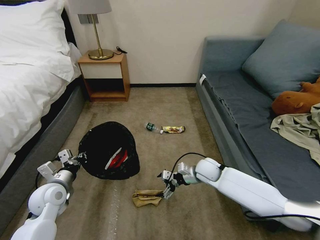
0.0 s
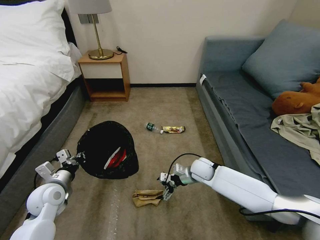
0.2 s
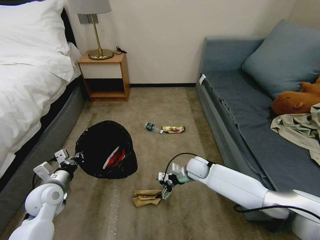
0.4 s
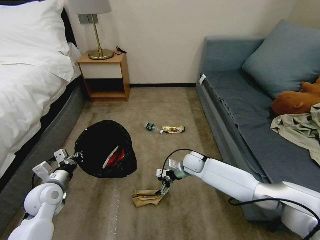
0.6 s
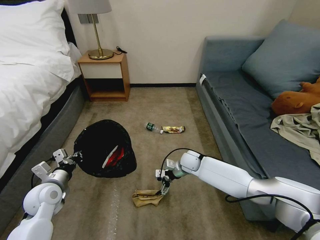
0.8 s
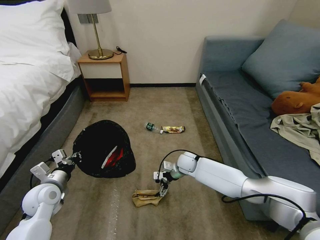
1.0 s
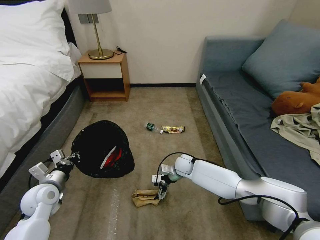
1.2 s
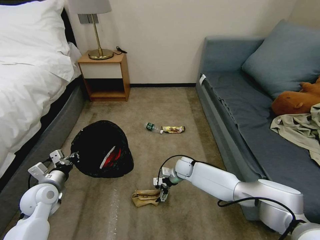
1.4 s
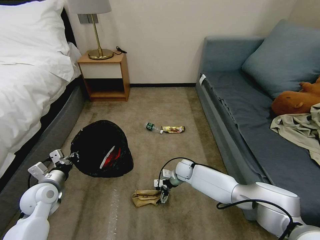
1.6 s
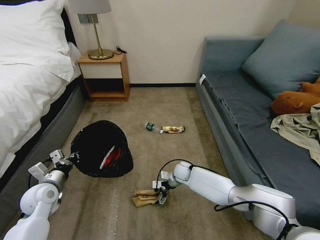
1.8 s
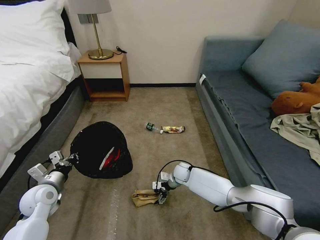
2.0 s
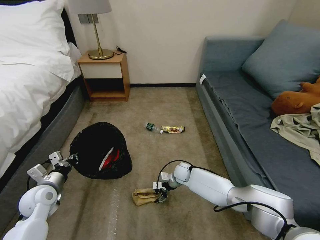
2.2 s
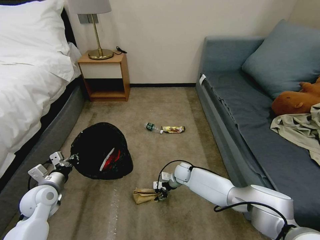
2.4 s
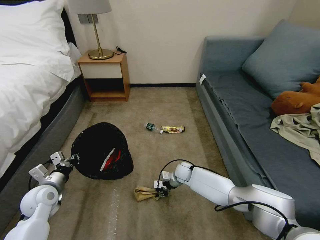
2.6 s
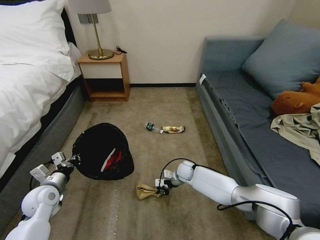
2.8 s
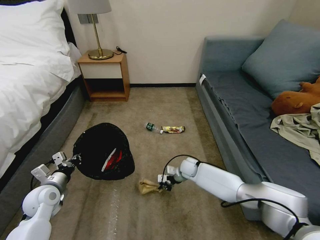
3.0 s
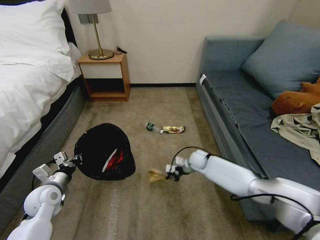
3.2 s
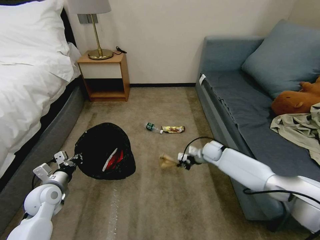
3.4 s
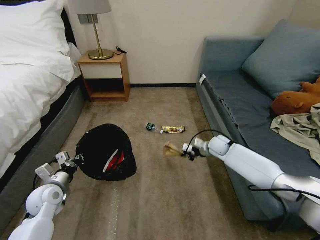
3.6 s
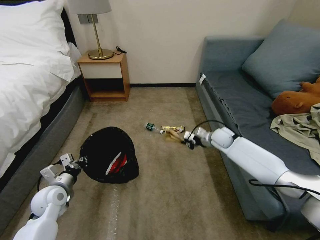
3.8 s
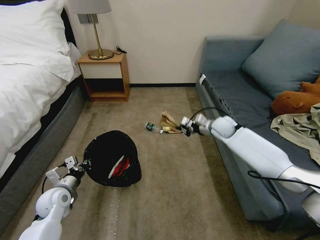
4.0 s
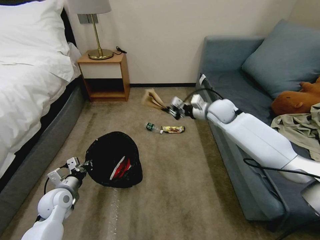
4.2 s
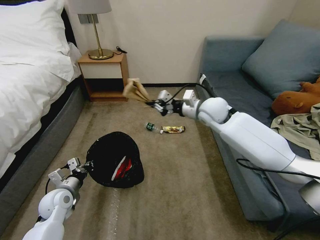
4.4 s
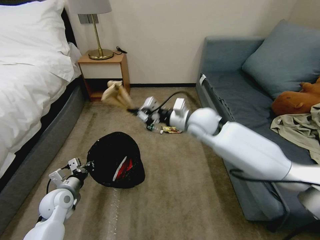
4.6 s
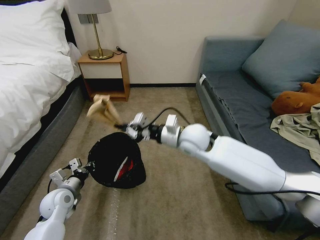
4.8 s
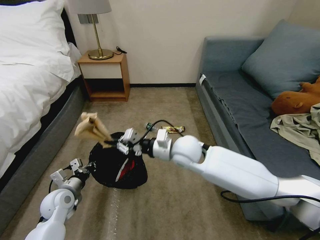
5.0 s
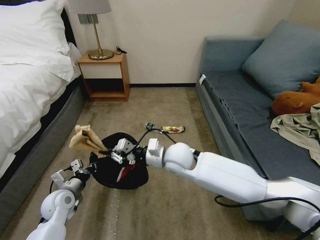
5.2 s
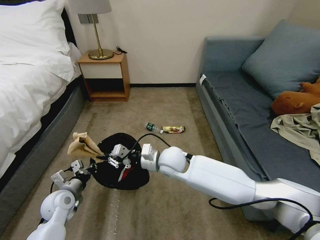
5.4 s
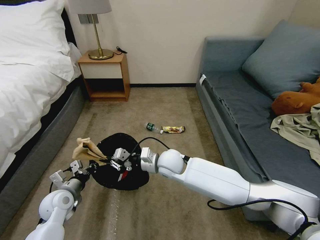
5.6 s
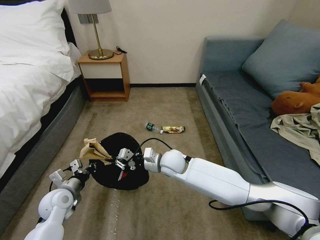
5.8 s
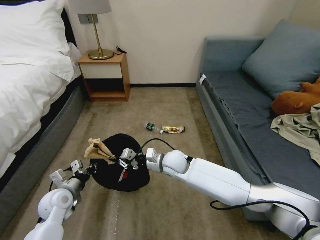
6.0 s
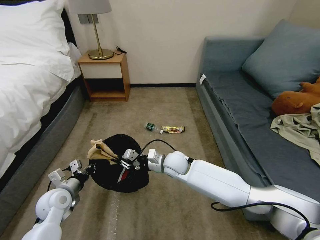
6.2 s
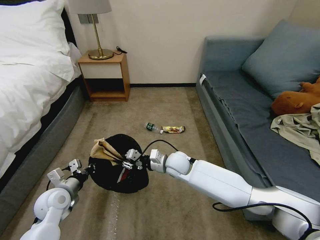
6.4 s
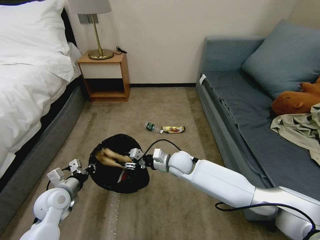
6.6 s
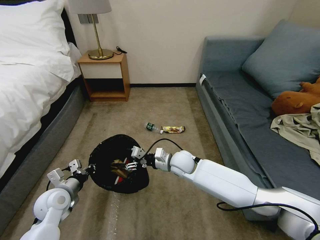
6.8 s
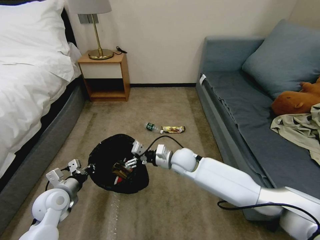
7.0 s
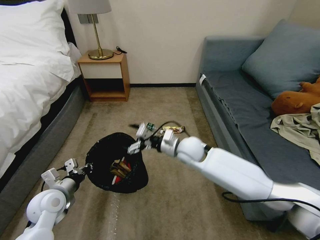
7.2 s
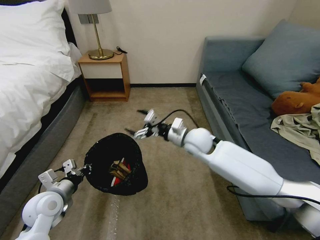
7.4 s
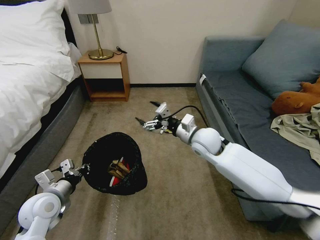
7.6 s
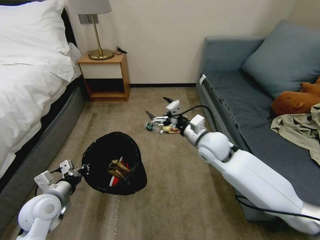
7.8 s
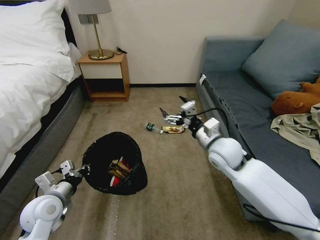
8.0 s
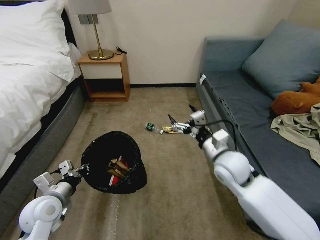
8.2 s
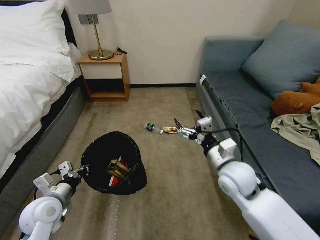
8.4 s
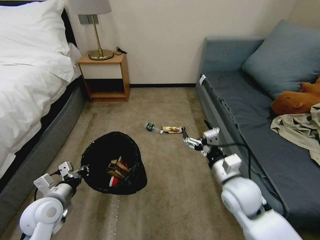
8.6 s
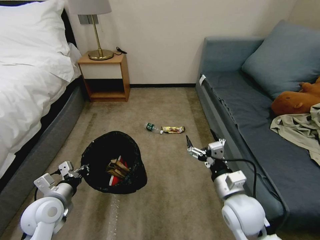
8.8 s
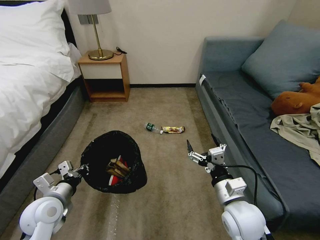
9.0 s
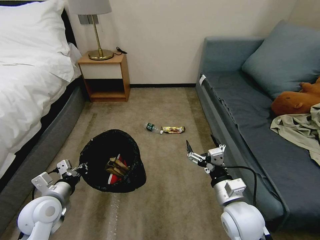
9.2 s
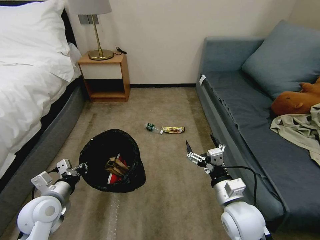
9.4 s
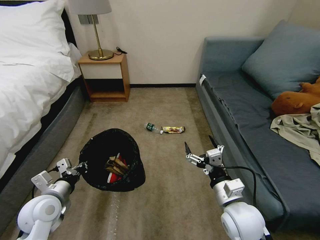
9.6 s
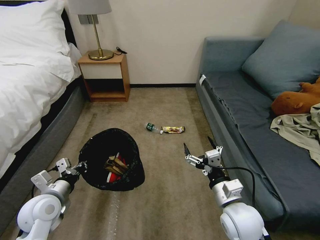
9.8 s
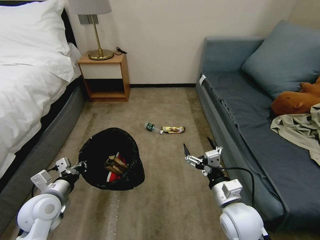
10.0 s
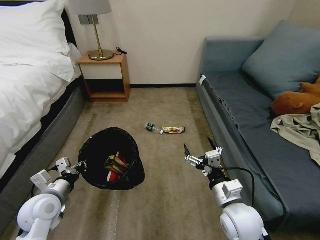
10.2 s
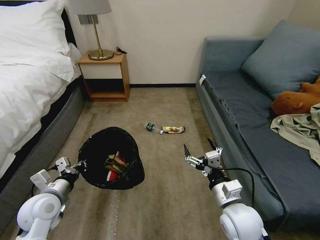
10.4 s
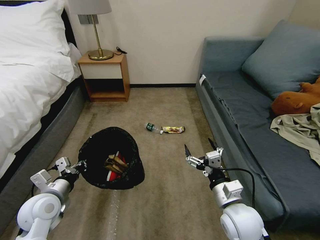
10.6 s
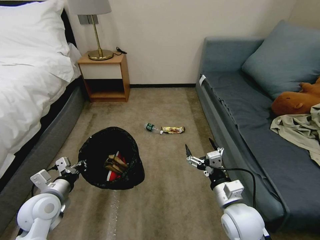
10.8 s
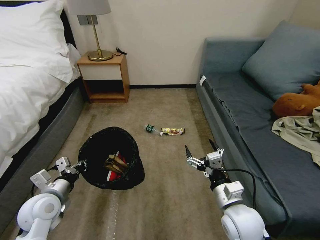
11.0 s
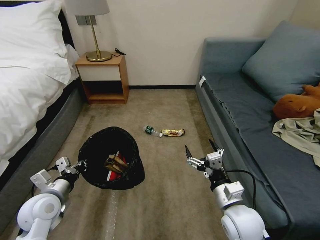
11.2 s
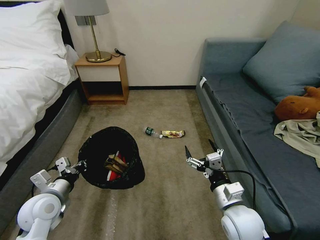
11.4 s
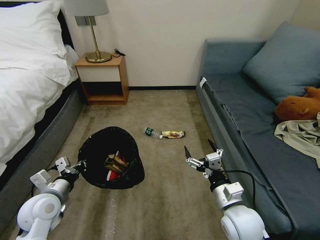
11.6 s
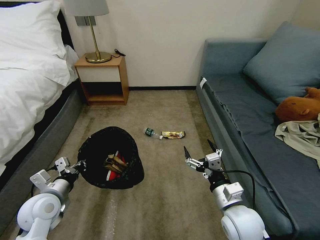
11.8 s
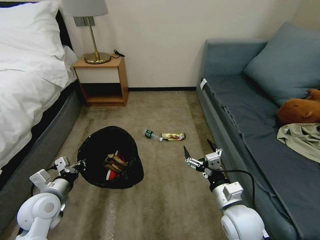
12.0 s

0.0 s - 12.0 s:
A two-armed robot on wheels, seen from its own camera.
Task of the whole recording: Pick up the trash bin, then pick up the garbage on the floor and place it into the trash bin.
0.0 s - 1.6 s: The right gripper goes some 15 cm downward, to the left and forward.
1.6 s - 3.0 s: The right gripper closes up.
3.0 s - 4.4 s: The right gripper travels upward by roughly 30 cm.
4.4 s - 6.0 s: The right gripper moves downward, to the left and backward, about 25 cm.
6.0 s - 7.6 s: The right gripper heads upward and to the right, covering about 15 cm, and opens. The left gripper goes about 5 cm upward.
7.6 s - 9.0 s: The right gripper is displaced backward by roughly 20 cm.
9.0 s - 10.4 s: Both grippers stay put.
10.4 s - 12.0 s: Both grippers stay put.

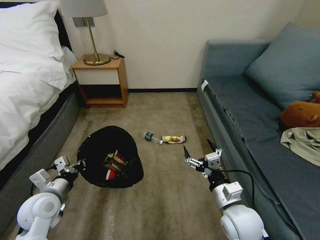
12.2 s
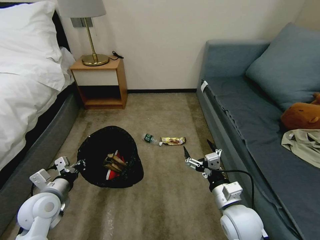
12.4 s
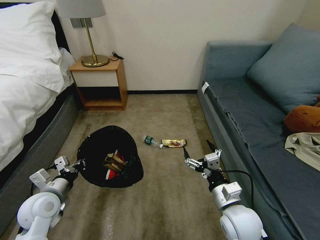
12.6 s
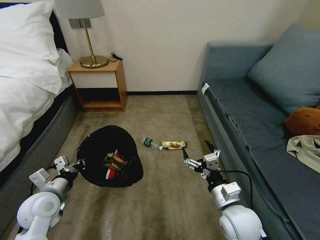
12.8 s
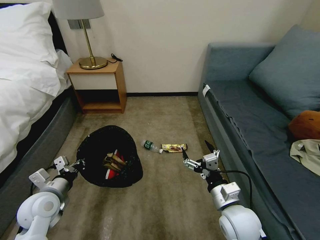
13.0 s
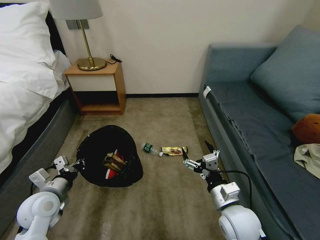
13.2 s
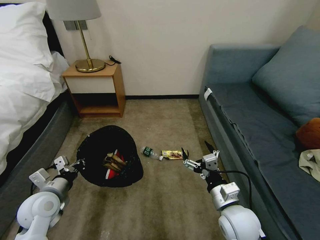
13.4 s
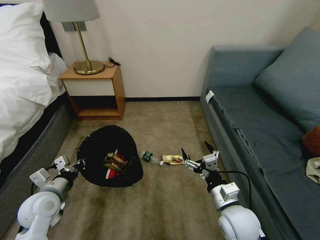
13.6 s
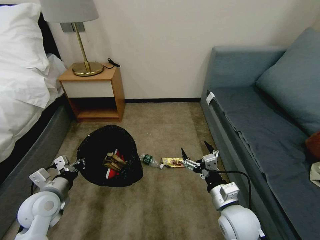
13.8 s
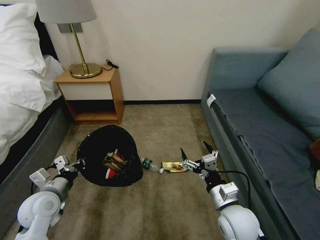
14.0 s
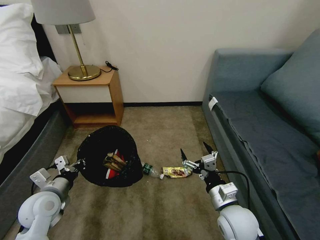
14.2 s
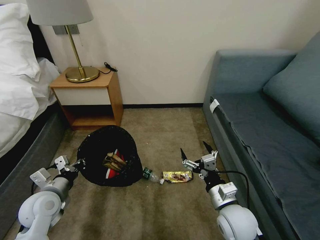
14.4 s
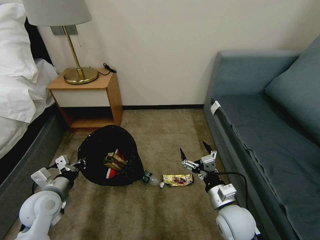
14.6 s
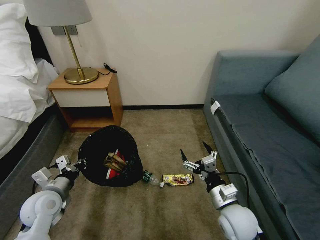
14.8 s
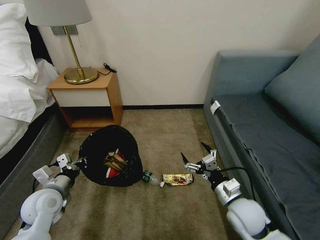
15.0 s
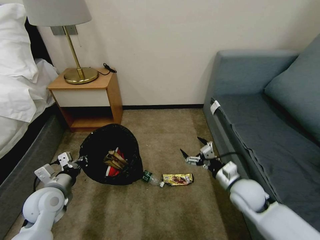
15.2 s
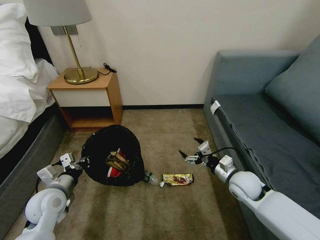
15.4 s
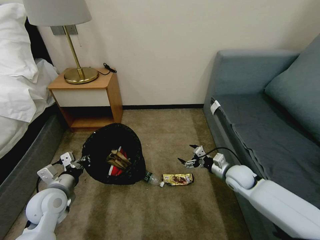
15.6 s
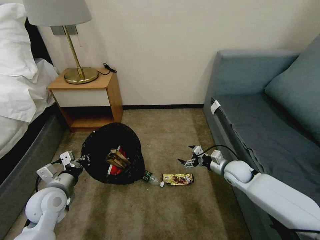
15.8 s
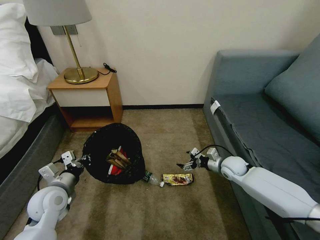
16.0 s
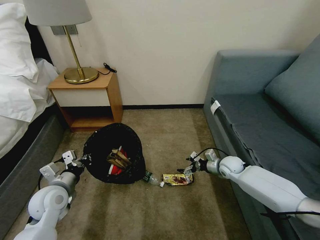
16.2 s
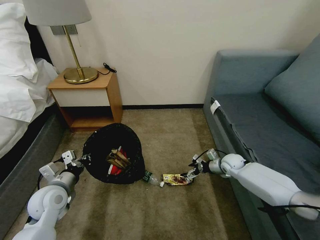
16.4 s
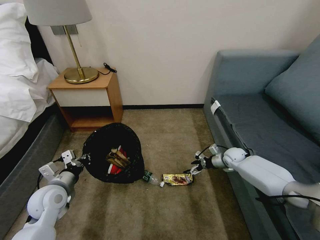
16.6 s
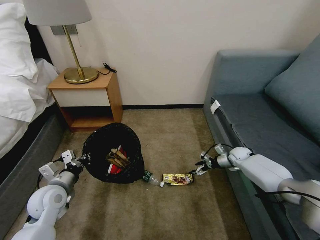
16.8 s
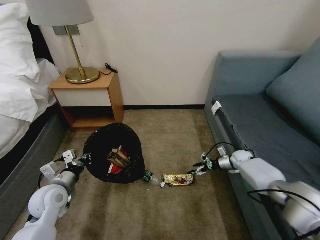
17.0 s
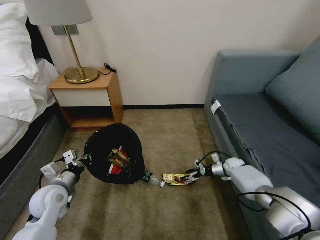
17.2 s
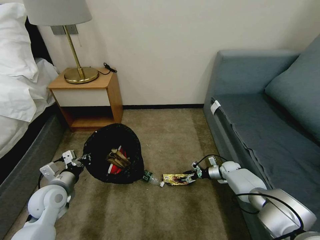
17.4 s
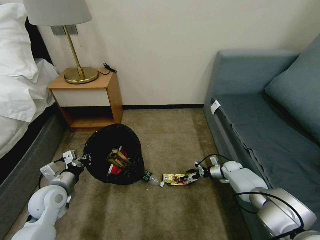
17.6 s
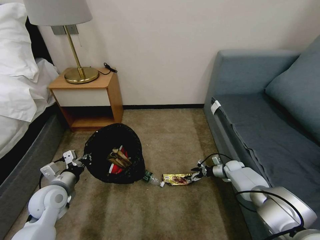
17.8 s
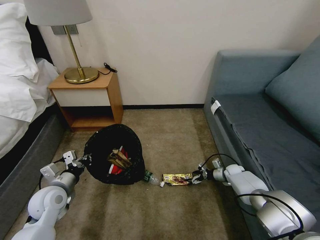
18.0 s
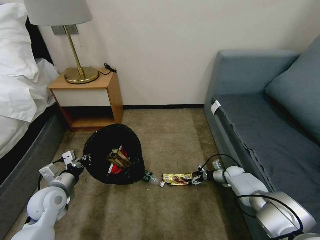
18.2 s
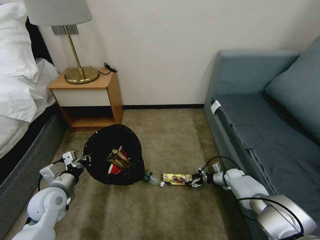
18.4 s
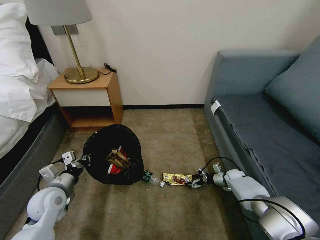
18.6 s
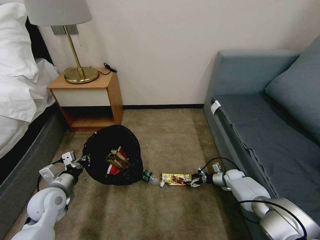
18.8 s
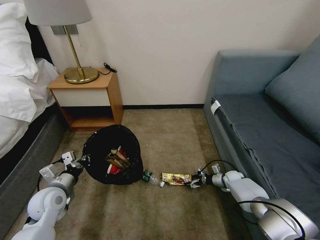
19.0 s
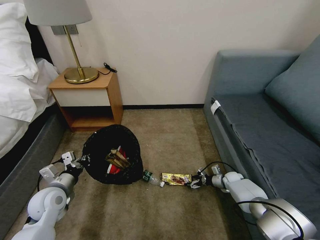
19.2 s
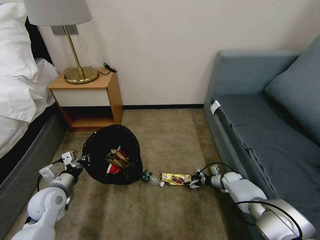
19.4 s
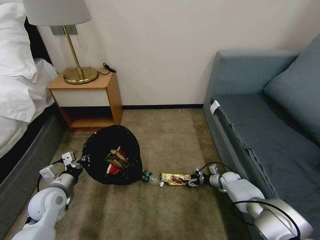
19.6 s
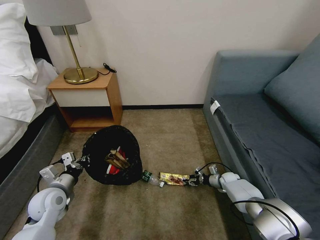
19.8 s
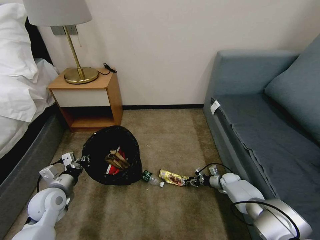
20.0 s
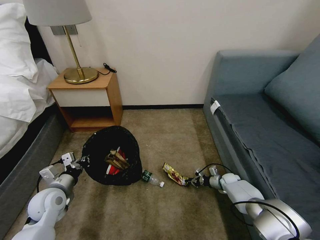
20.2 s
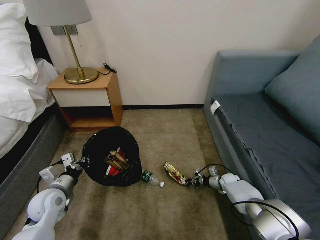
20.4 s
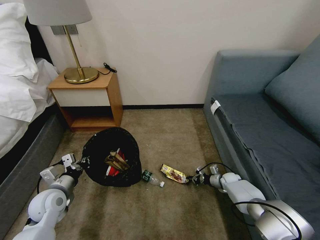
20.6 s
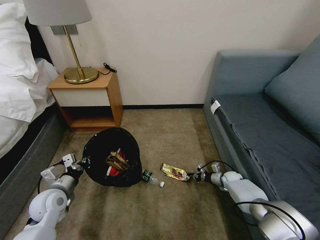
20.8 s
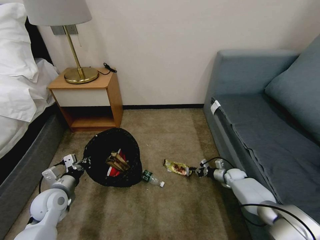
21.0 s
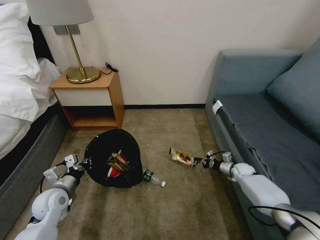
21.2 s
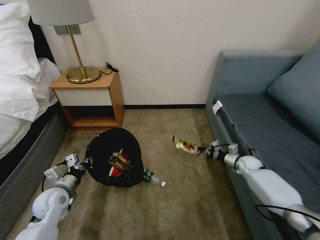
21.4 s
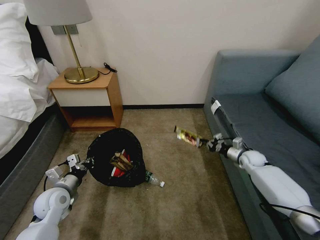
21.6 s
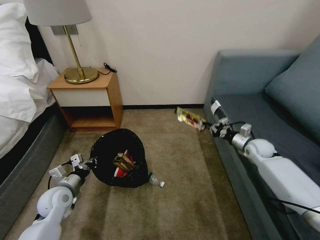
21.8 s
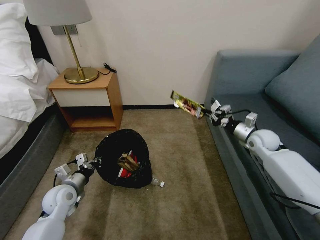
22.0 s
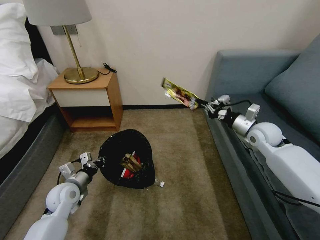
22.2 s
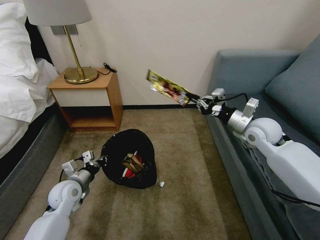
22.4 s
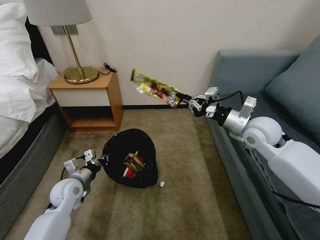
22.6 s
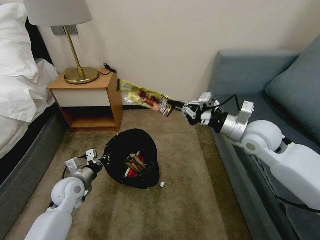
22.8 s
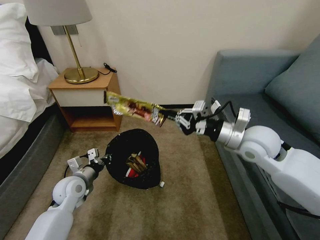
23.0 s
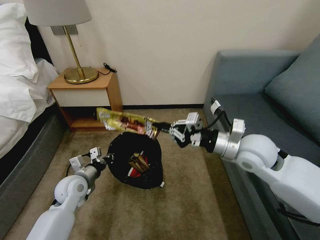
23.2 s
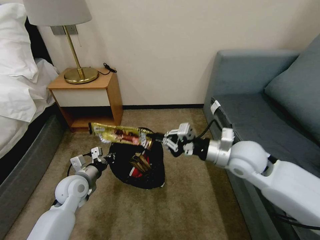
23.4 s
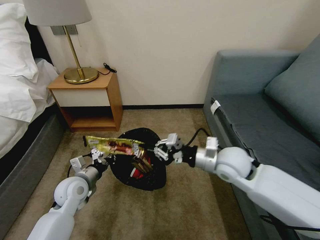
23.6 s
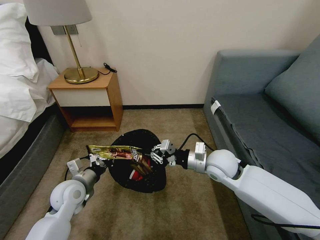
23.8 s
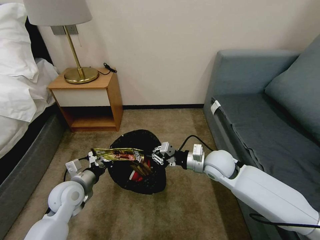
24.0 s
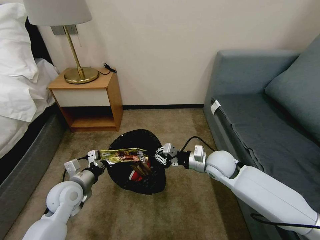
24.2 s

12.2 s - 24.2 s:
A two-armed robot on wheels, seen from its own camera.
Task of the whole recording: Pick up the trash bin, then pick up the garbage on the floor and place it into the trash bin.
13.8 s - 15.2 s: The right gripper heads forward and to the right, covering about 10 cm.
15.2 s - 16.6 s: The right gripper travels forward and downward by roughly 20 cm.
16.6 s - 18.2 s: The right gripper heads downward, covering some 10 cm.
18.2 s - 19.8 s: The right gripper closes up.
19.8 s - 21.2 s: The right gripper is displaced upward by roughly 5 cm, and closes up.
21.2 s - 22.6 s: The left gripper shifts by approximately 5 cm. The right gripper shifts approximately 35 cm upward.
22.6 s - 24.2 s: The right gripper shifts about 15 cm downward and to the left.
